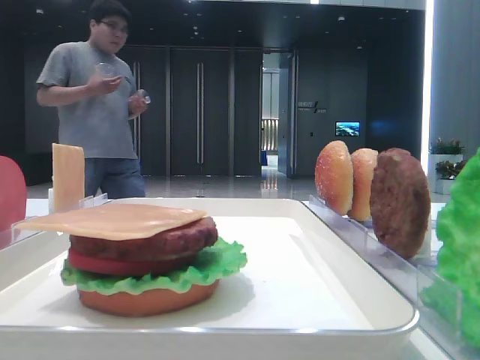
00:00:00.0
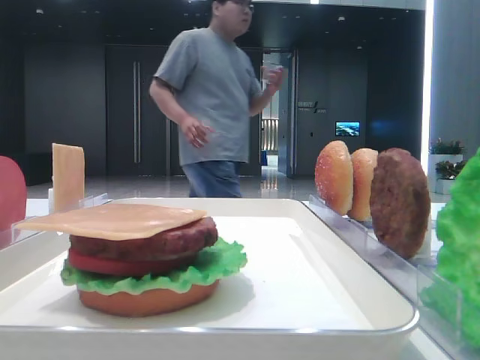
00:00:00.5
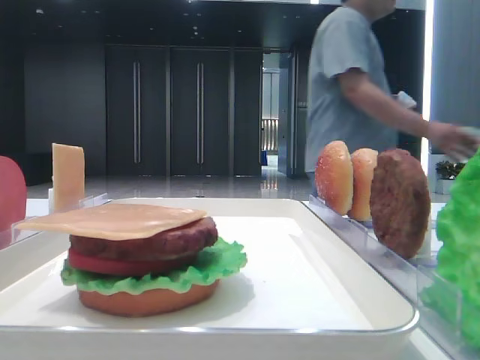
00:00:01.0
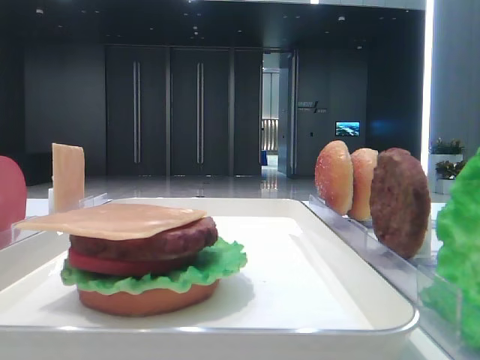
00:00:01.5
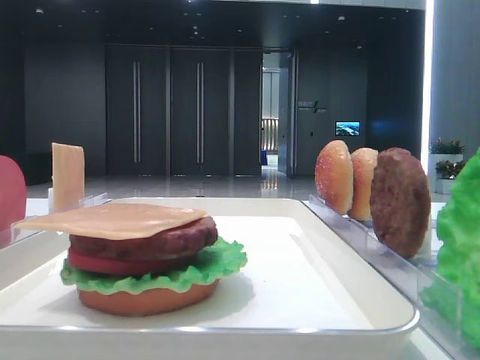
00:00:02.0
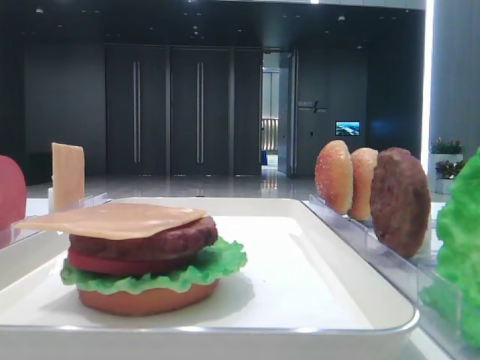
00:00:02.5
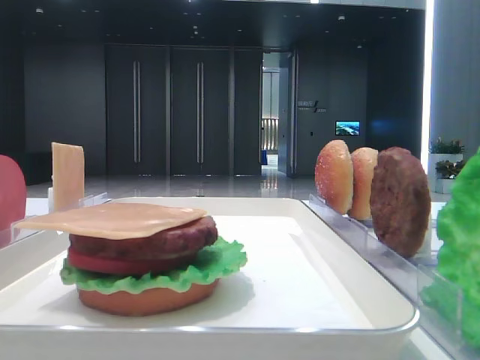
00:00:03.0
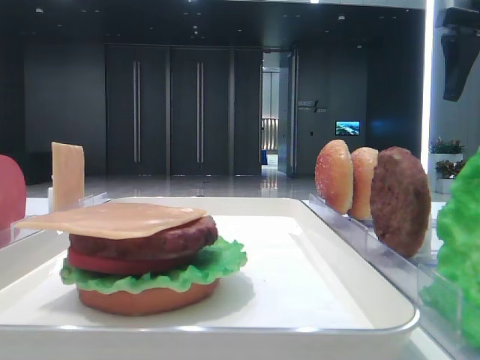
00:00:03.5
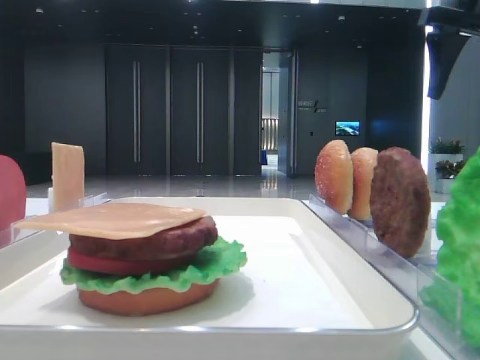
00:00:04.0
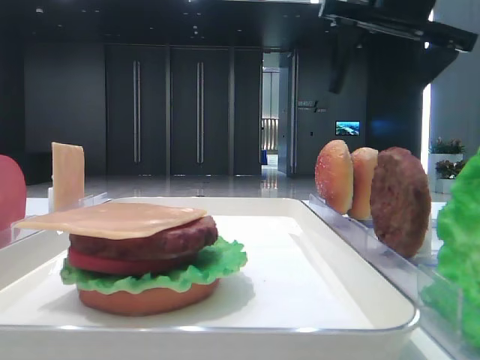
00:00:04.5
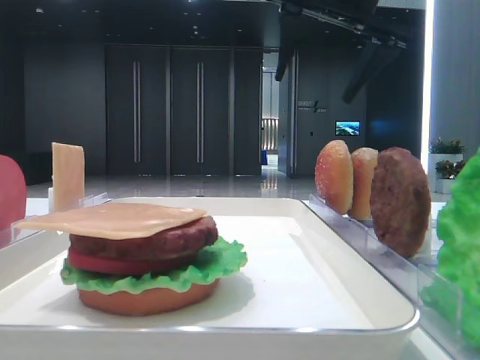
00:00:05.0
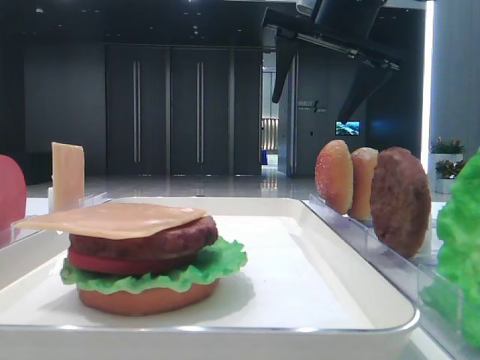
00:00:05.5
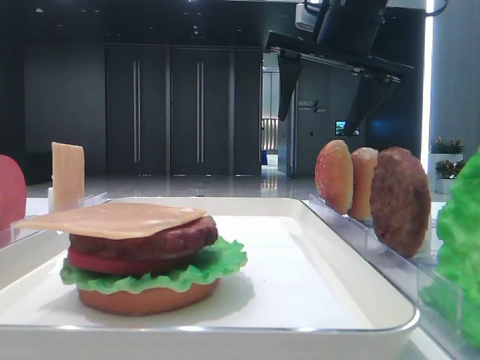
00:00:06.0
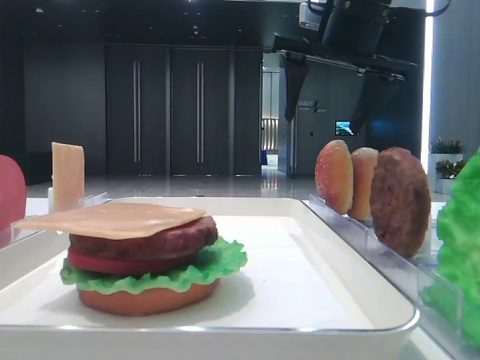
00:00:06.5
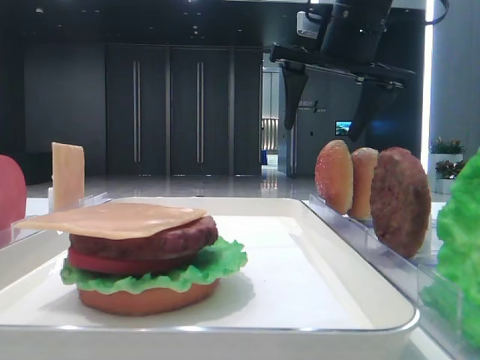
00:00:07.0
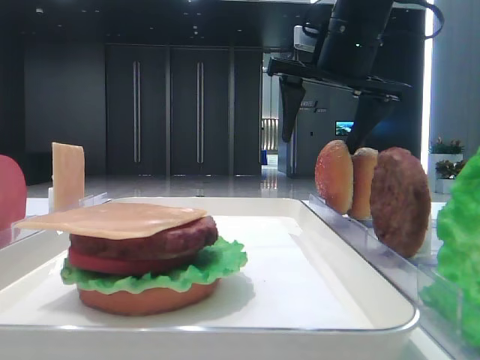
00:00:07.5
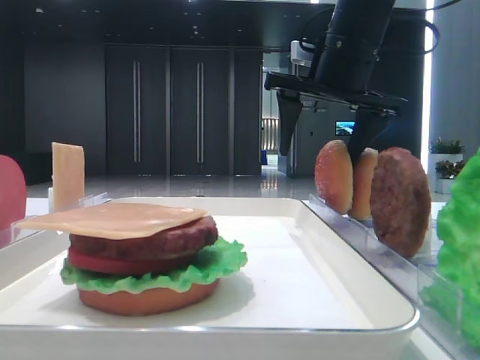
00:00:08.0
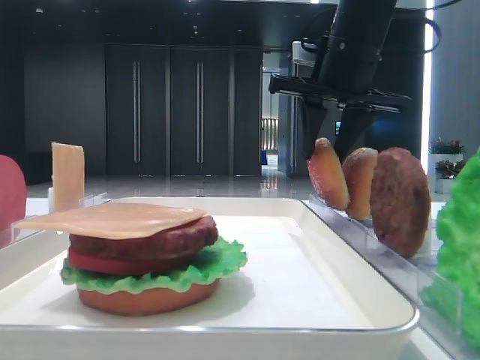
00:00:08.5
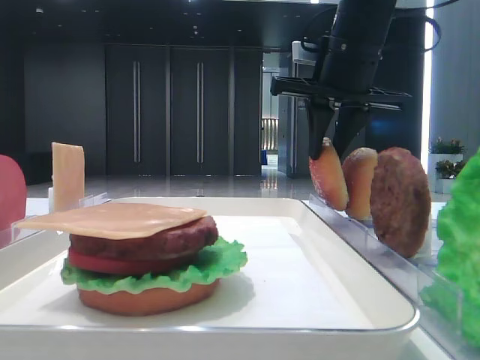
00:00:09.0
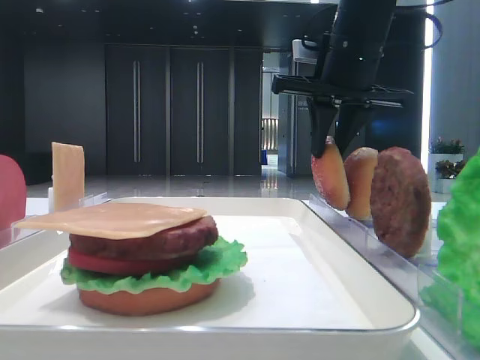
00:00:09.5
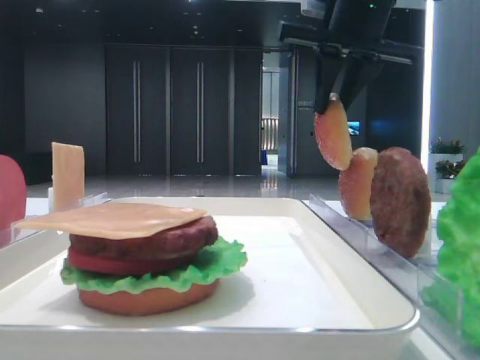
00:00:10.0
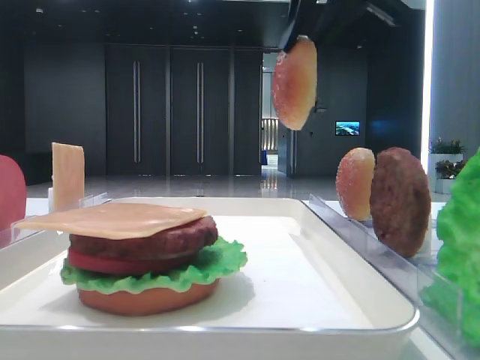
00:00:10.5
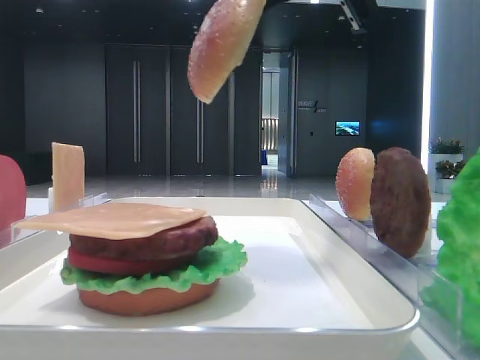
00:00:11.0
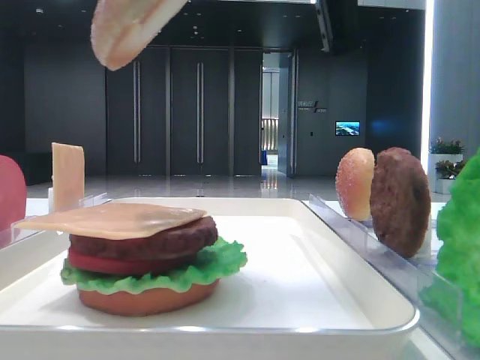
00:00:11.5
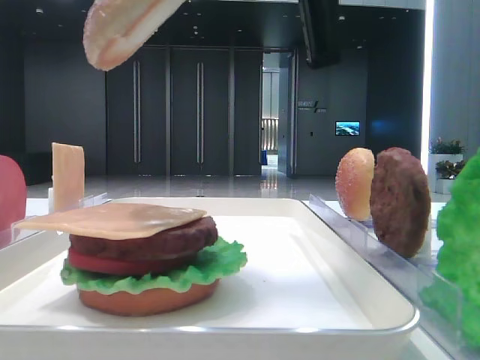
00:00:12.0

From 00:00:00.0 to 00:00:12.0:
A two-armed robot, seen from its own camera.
Step, from 00:00:00.0 to 00:00:09.0: Pick up the top bread slice with the right hand.
From 00:00:02.0 to 00:00:04.0: The right gripper moves forward, about 25 cm.
From 00:00:04.0 to 00:00:06.0: The right gripper moves to the left, about 15 cm.
From 00:00:06.0 to 00:00:08.0: The grippers stay close to where they were, moving slightly.
From 00:00:08.0 to 00:00:10.0: The right gripper moves upward, approximately 5 cm, and closes up.
From 00:00:10.0 to 00:00:12.0: The right gripper moves backward, some 15 cm.

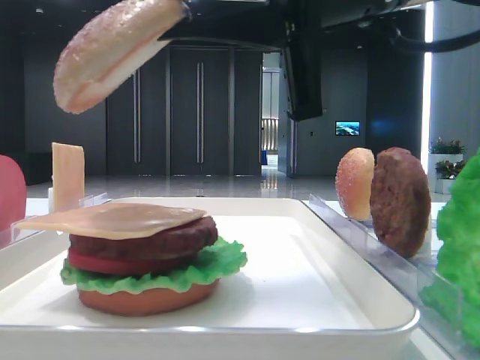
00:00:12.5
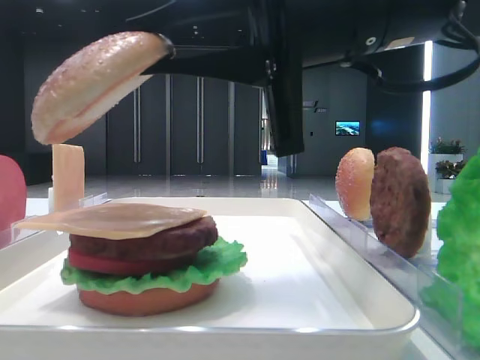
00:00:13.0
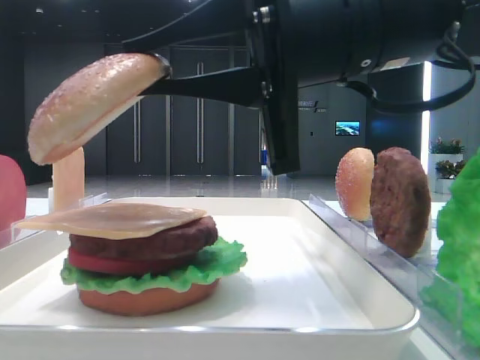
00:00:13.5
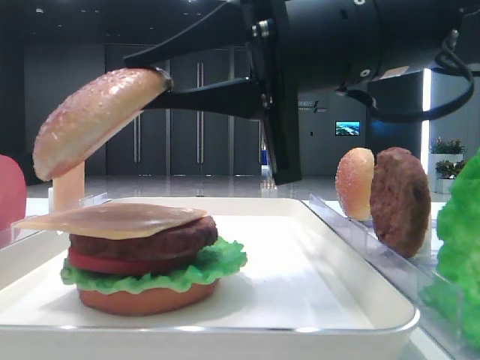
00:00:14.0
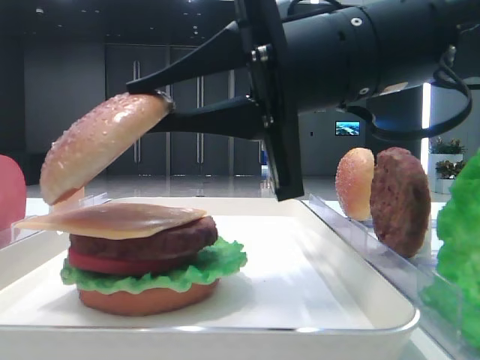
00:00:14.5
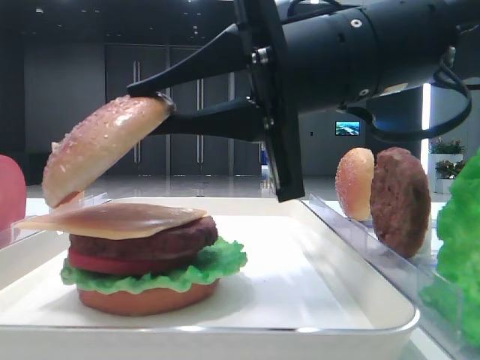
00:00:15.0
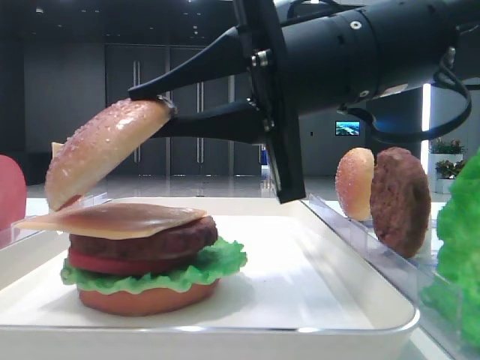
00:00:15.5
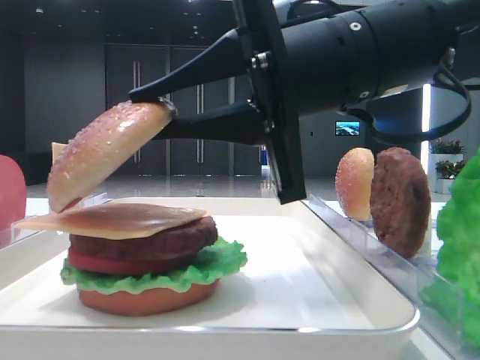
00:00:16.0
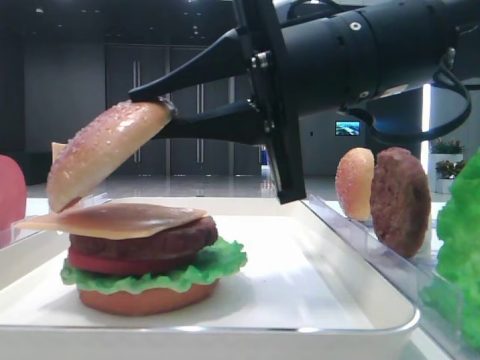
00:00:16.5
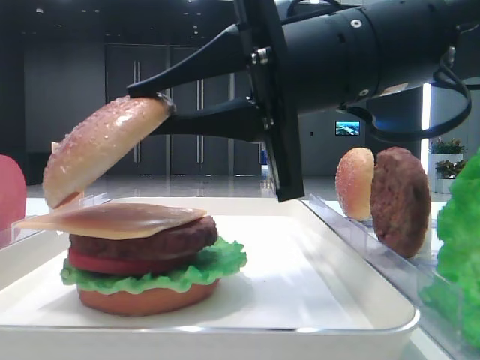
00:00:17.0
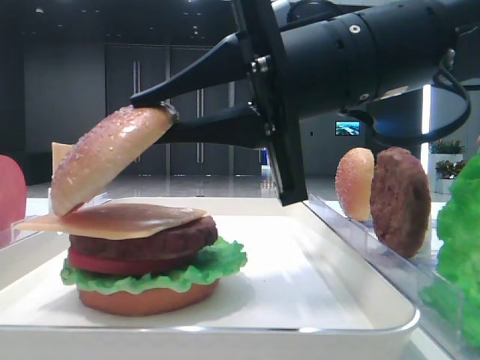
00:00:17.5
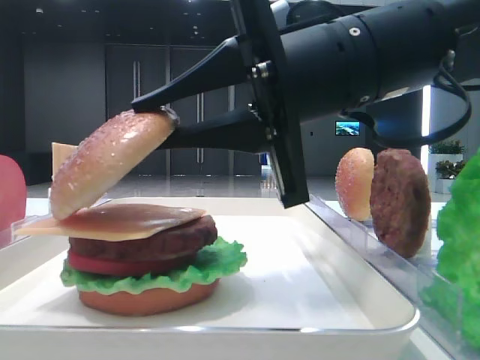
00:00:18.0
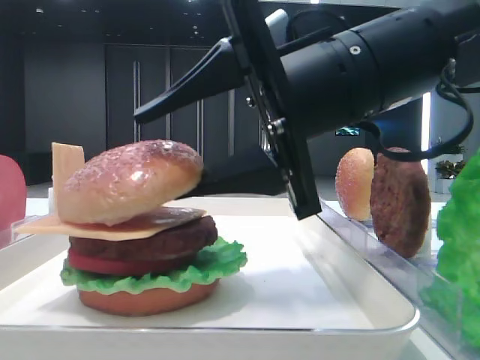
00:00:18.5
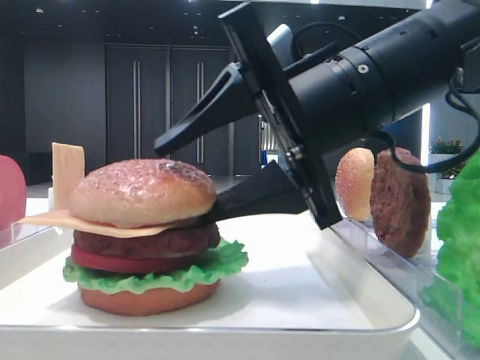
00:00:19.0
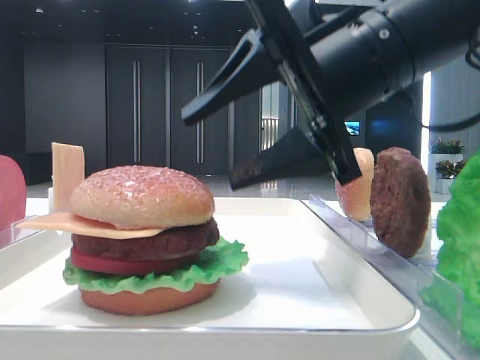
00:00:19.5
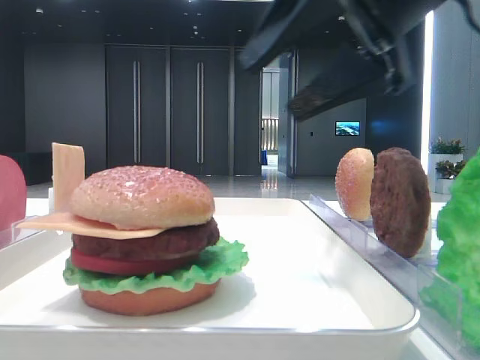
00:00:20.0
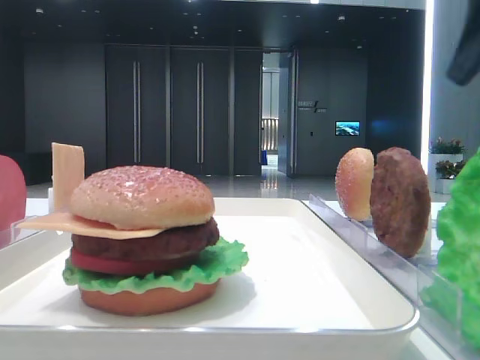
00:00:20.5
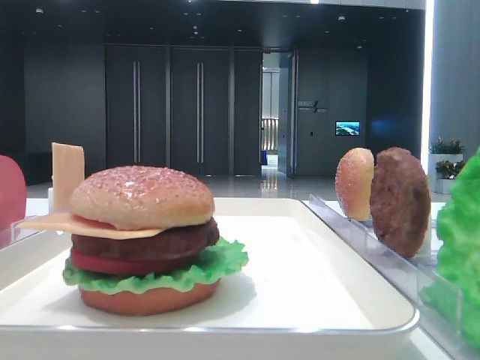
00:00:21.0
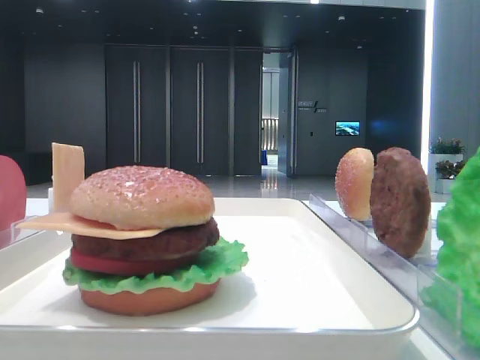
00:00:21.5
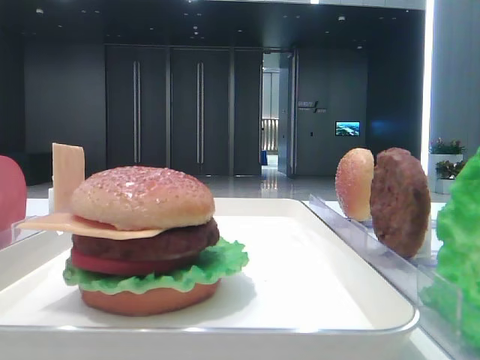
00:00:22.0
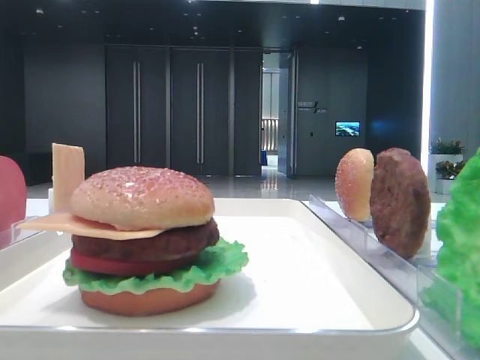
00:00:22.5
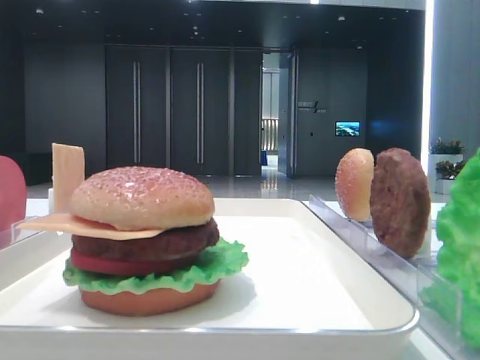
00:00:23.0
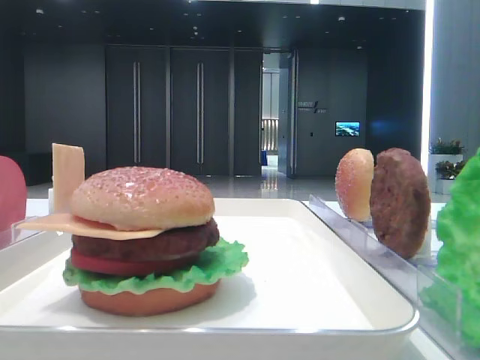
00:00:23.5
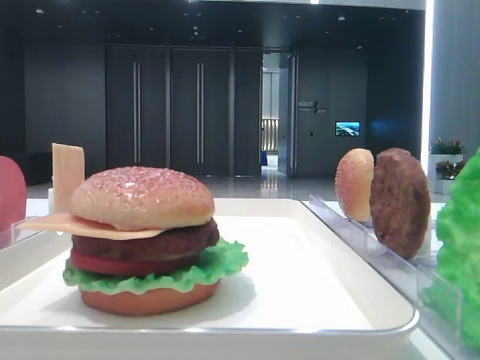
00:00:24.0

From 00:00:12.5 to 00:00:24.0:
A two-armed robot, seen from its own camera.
Step, from 00:00:12.5 to 00:00:19.0: Place the top bread slice on the cheese with the right hand.
From 00:00:12.5 to 00:00:14.5: The right gripper is displaced downward by about 5 cm.
From 00:00:14.5 to 00:00:16.5: The two grippers keep their place.
From 00:00:16.5 to 00:00:18.5: The right gripper opens up.
From 00:00:18.5 to 00:00:20.0: The right gripper moves upward and to the right, some 10 cm.
From 00:00:20.0 to 00:00:22.0: The right gripper travels backward and to the right by about 25 cm.

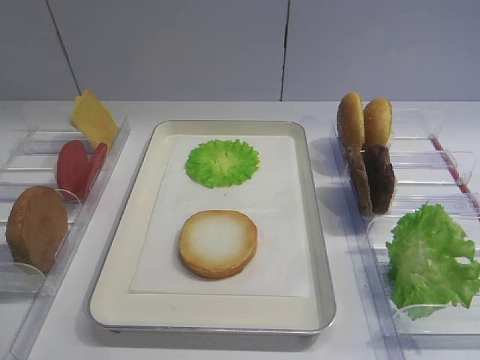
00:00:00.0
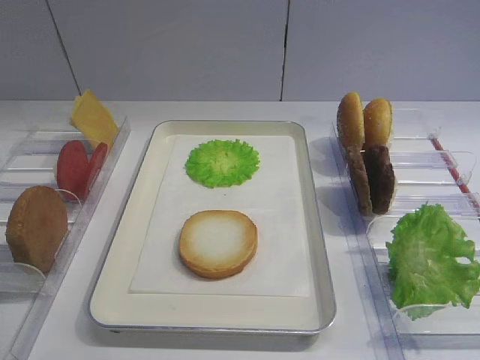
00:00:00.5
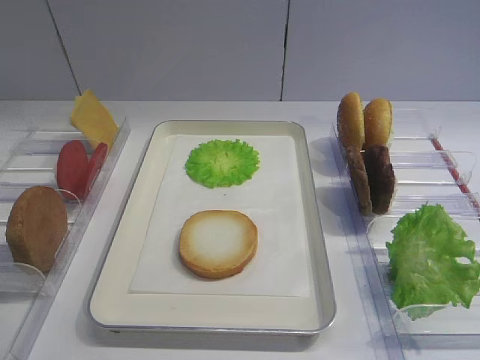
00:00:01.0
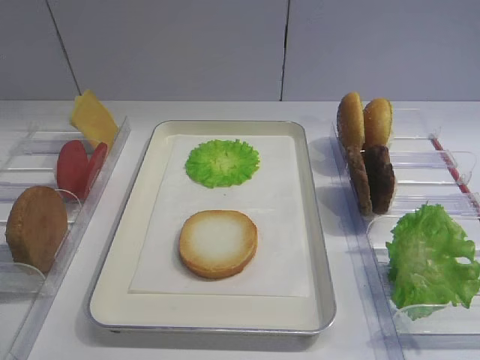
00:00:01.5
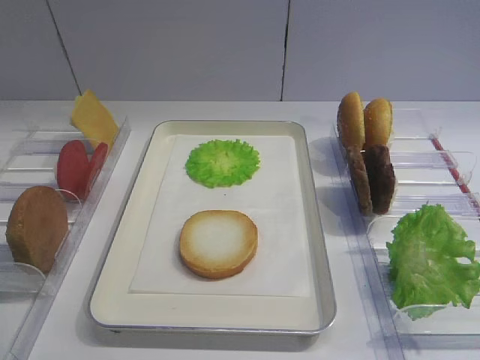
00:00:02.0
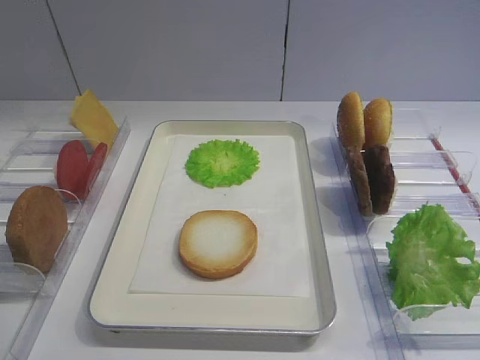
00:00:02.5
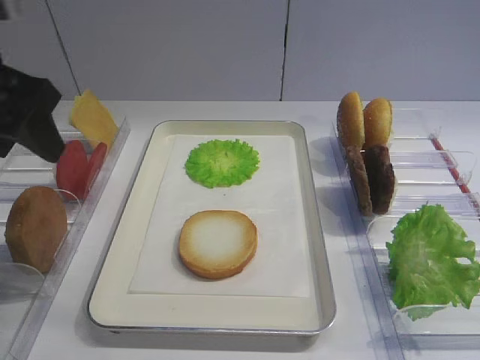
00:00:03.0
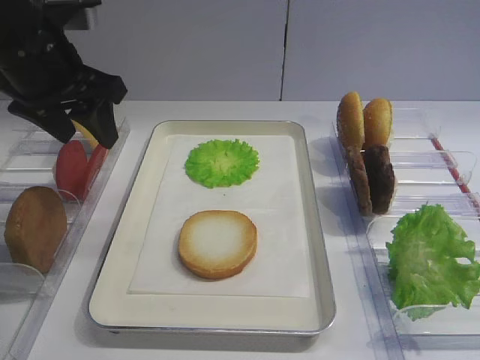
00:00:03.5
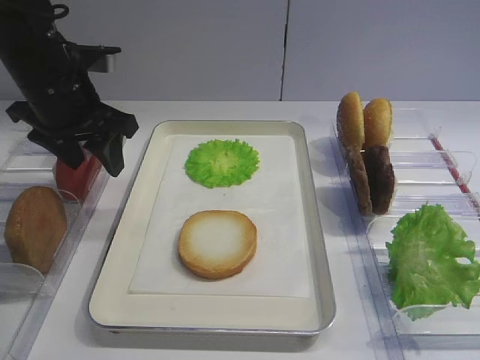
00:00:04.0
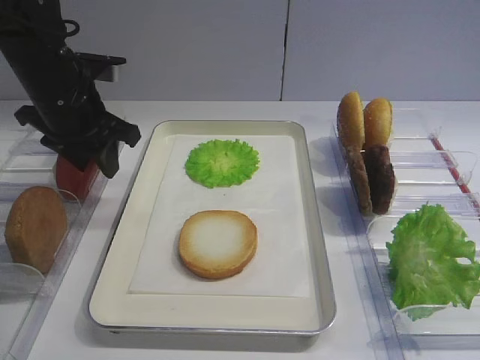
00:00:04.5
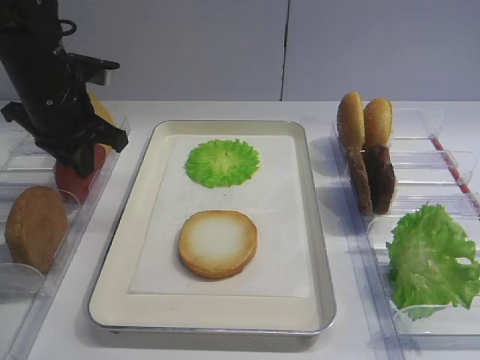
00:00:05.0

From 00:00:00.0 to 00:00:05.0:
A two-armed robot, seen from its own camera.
From 00:00:02.5 to 00:00:05.0: The left gripper heads forward and downward, covering roughly 30 cm, and closes.
